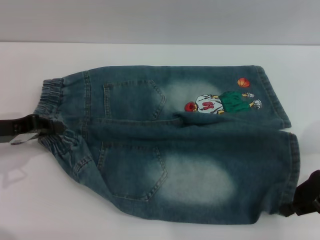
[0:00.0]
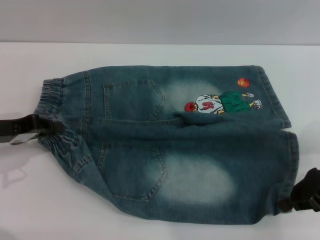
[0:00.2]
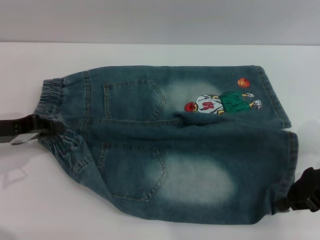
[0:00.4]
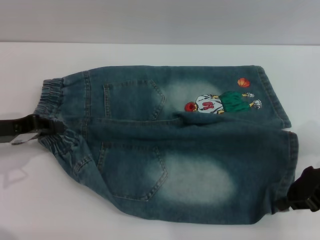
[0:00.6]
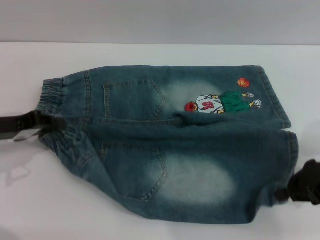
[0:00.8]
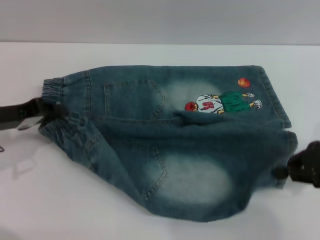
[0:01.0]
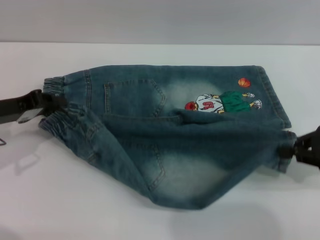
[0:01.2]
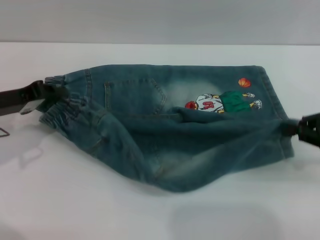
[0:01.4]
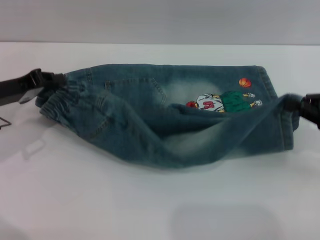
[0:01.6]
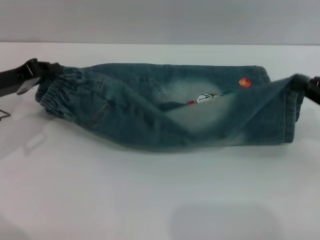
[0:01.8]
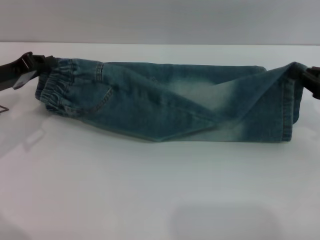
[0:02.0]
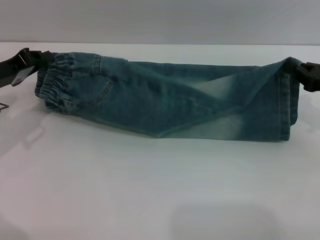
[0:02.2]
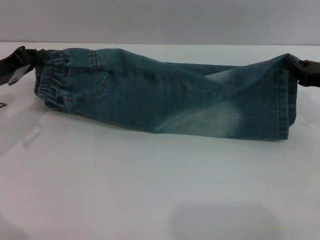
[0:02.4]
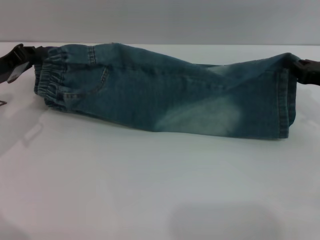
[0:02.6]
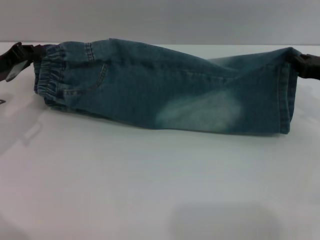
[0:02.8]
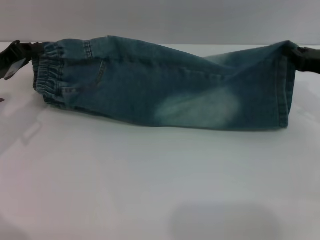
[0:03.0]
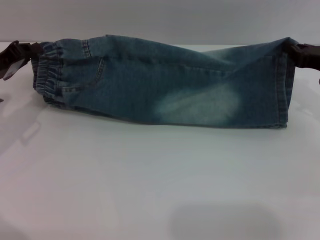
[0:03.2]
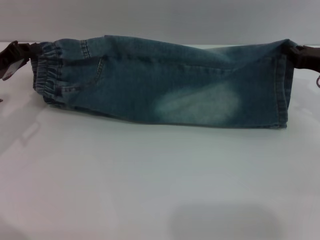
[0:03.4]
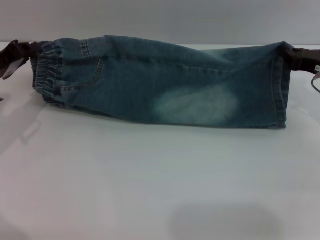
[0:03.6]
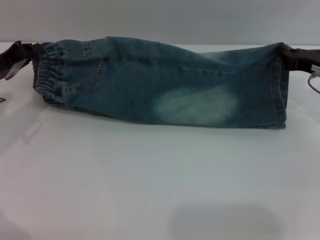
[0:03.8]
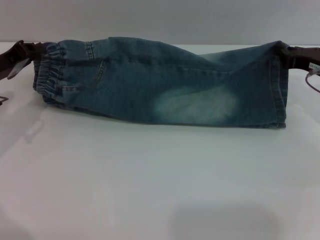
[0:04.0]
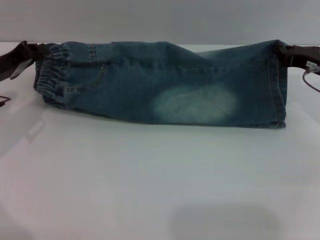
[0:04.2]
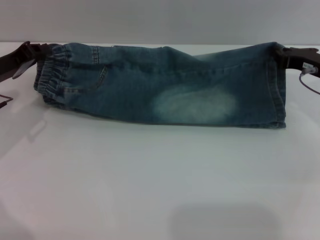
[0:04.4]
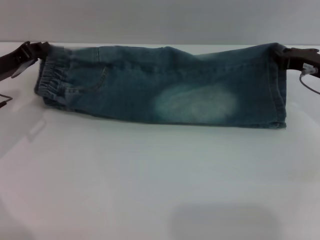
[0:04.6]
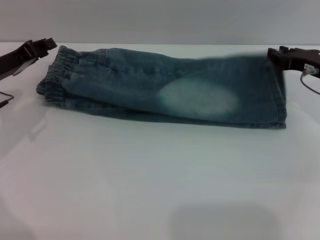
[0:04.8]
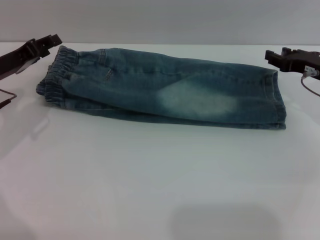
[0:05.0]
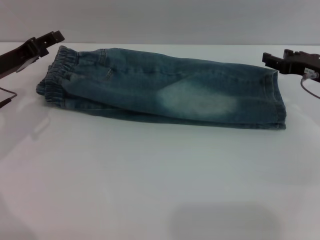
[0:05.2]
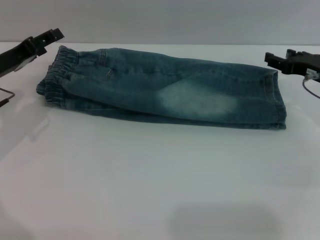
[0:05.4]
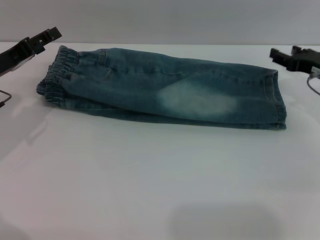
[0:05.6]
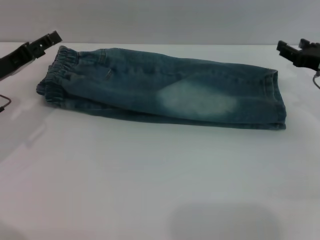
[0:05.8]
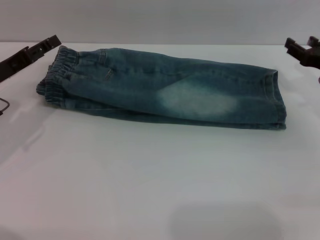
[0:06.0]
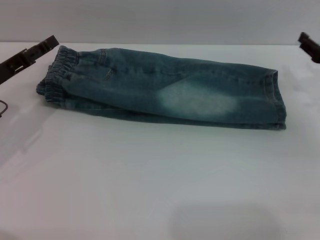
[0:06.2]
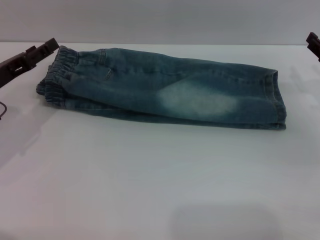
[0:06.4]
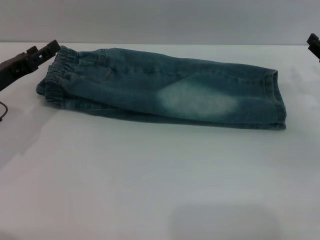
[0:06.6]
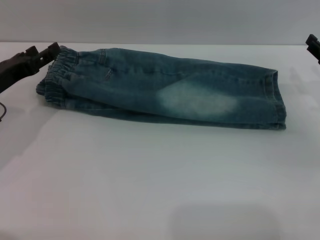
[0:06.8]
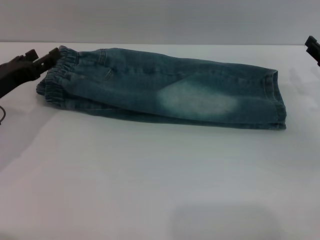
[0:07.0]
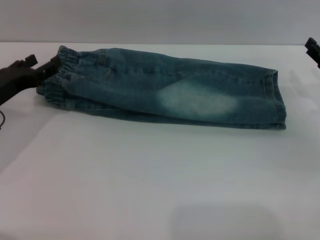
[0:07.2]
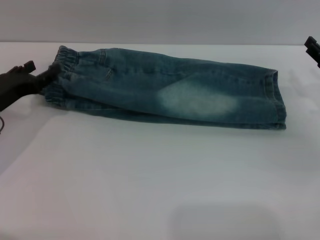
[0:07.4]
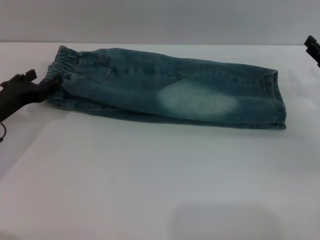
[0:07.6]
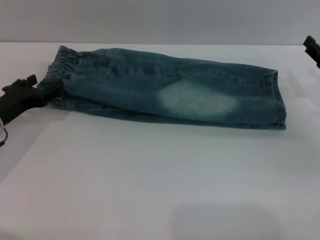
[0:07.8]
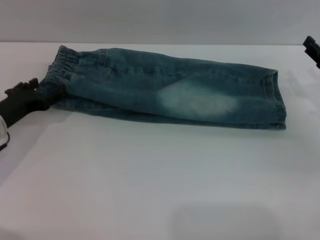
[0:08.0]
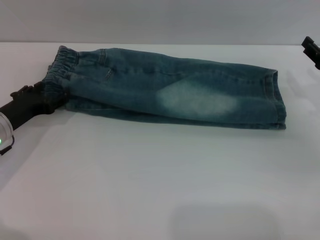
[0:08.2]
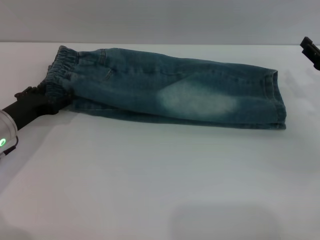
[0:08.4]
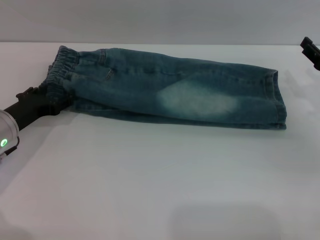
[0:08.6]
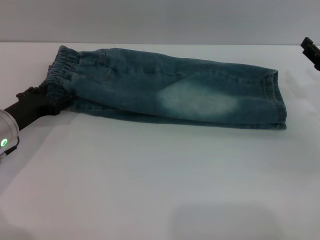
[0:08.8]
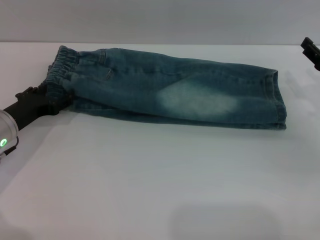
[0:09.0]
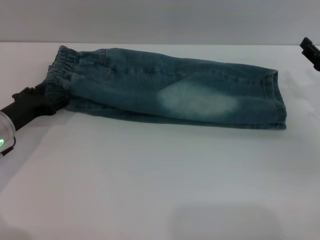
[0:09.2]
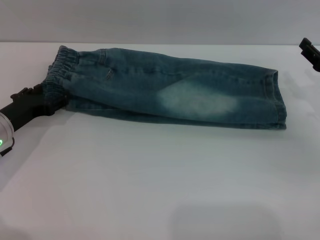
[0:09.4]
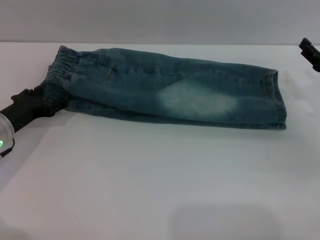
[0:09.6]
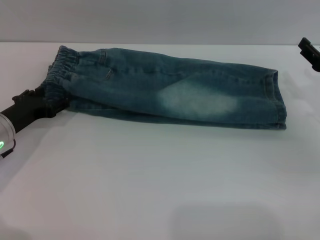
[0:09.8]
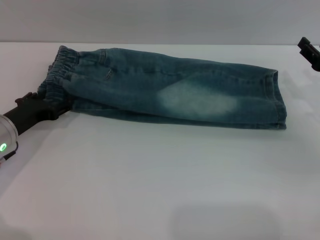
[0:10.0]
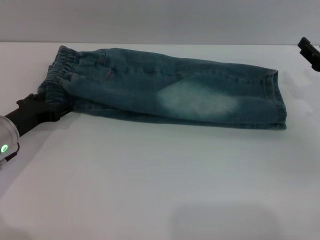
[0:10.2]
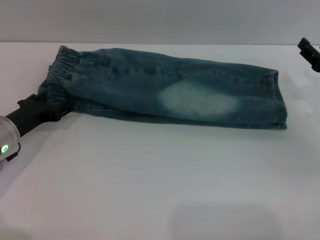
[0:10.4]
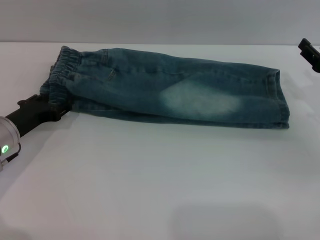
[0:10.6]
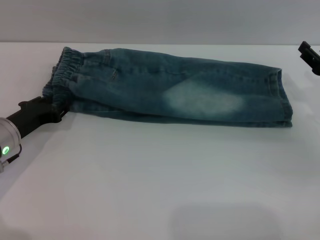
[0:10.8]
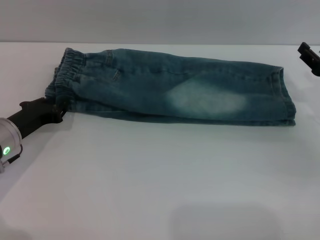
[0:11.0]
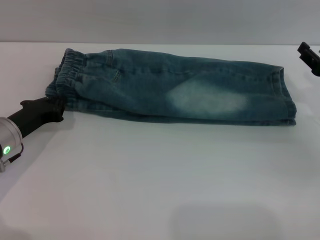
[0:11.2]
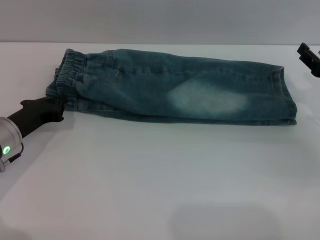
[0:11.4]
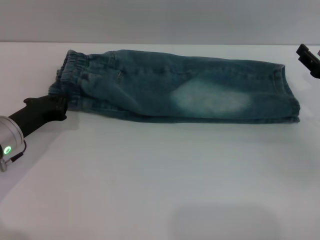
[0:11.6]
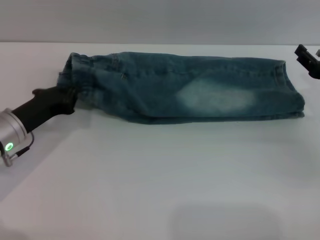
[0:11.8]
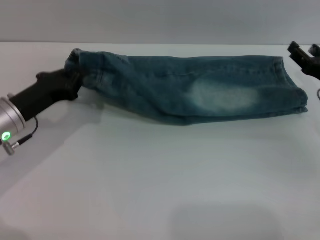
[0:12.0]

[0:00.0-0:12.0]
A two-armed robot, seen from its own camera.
Step, 0:00.0 to 0:04.8: Fold the bottom of the pants upward with both grippers.
0:00.0 to 0:01.6: The right gripper closes its fingers.
0:01.6 to 0:03.0: The right gripper travels forward by some 5 cm.
0:03.0 to 0:04.4: The grippers move only a little.
0:04.4 to 0:06.0: The right gripper opens. The left gripper opens its fingers.
0:07.6 to 0:09.0: The grippers make only small movements.
0:09.0 to 0:10.4: Both grippers stay about where they are.
0:10.4 to 0:12.0: The left gripper closes.

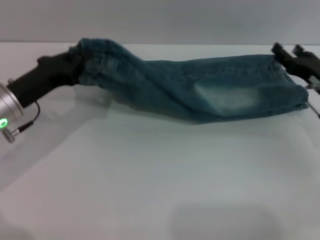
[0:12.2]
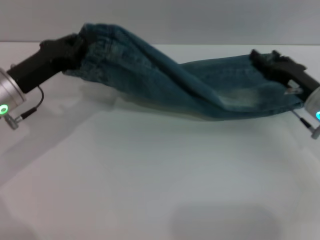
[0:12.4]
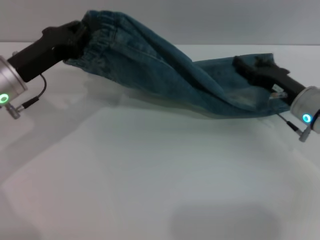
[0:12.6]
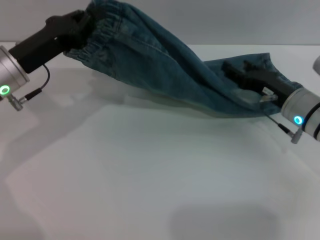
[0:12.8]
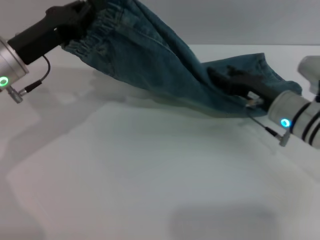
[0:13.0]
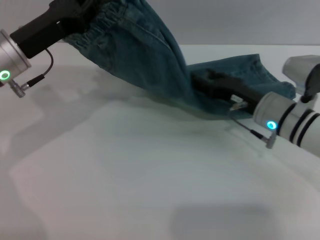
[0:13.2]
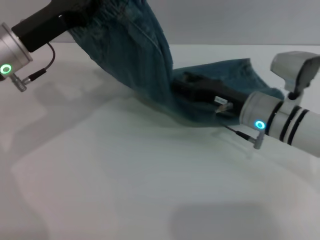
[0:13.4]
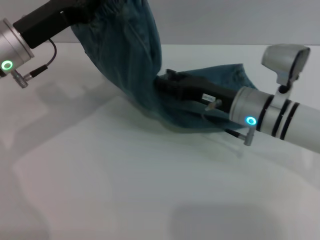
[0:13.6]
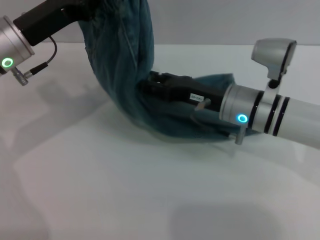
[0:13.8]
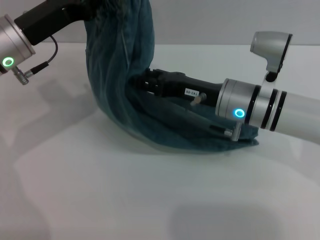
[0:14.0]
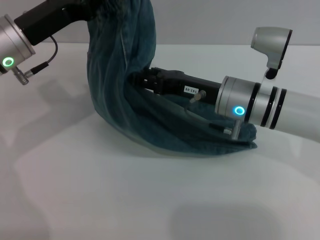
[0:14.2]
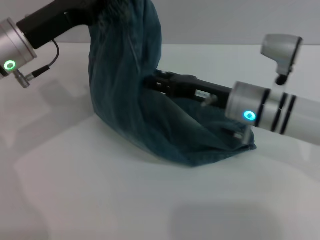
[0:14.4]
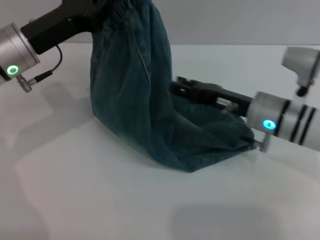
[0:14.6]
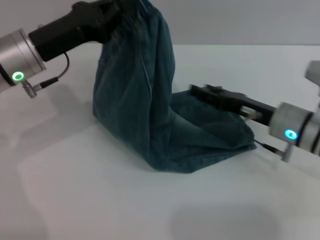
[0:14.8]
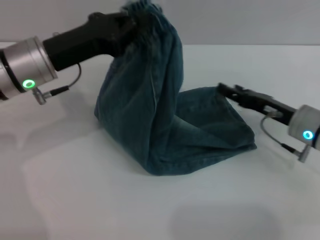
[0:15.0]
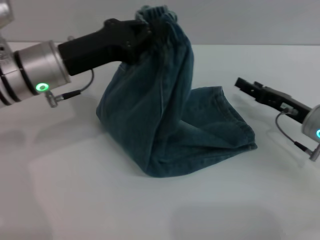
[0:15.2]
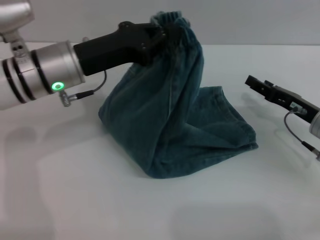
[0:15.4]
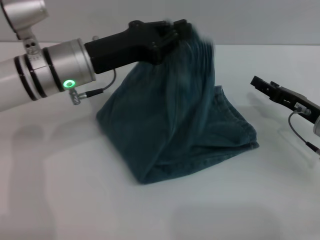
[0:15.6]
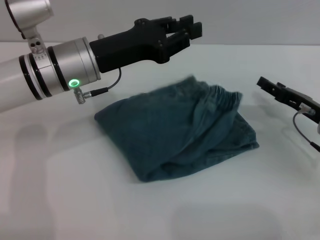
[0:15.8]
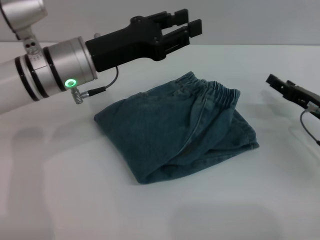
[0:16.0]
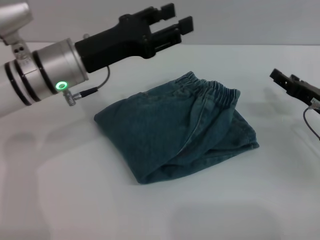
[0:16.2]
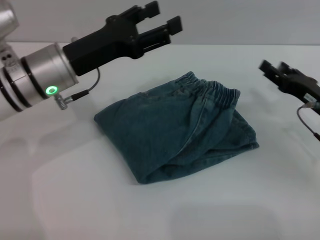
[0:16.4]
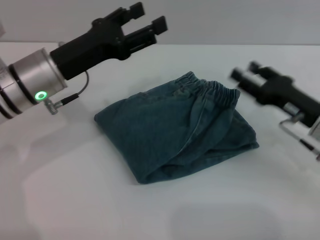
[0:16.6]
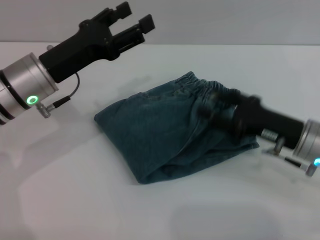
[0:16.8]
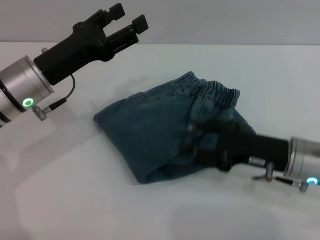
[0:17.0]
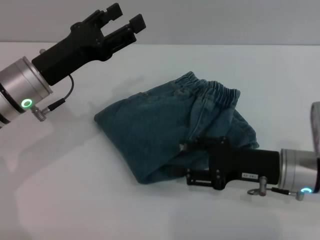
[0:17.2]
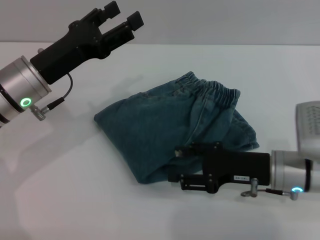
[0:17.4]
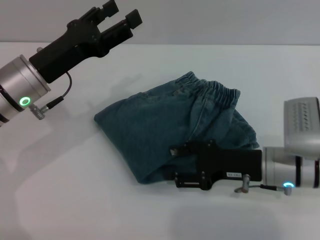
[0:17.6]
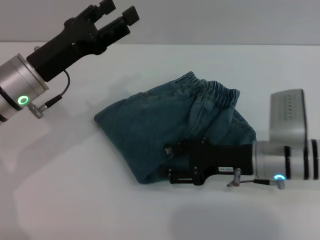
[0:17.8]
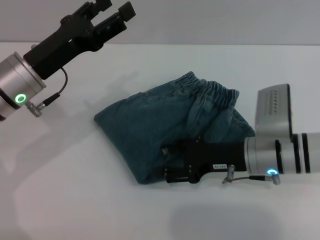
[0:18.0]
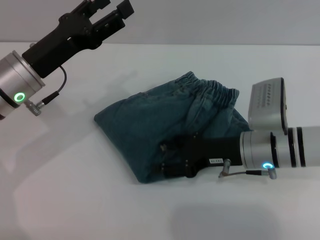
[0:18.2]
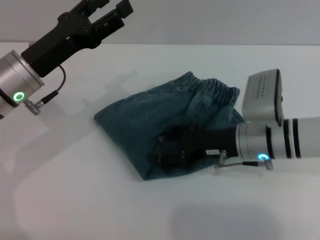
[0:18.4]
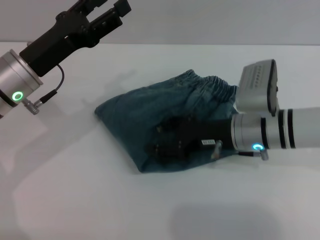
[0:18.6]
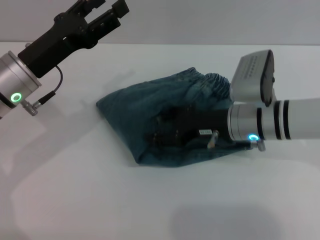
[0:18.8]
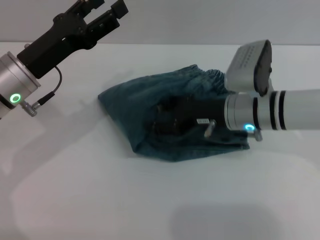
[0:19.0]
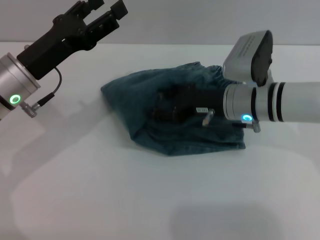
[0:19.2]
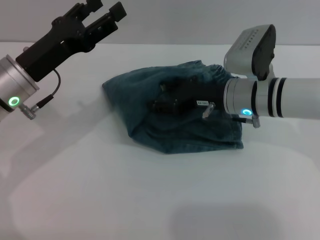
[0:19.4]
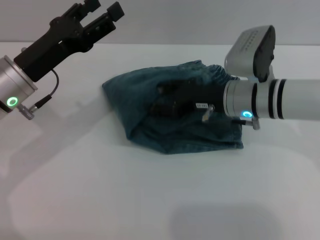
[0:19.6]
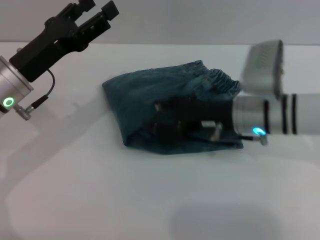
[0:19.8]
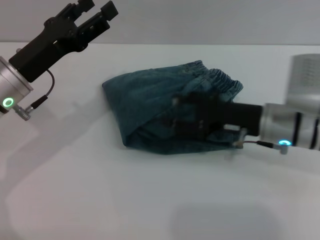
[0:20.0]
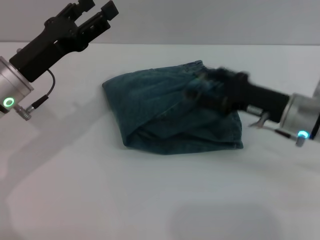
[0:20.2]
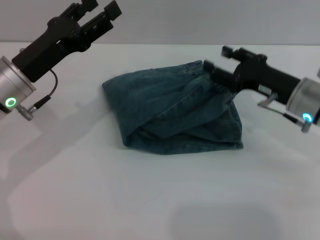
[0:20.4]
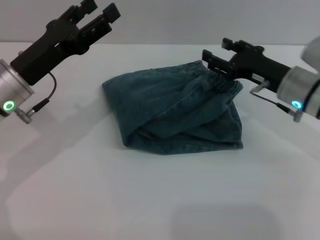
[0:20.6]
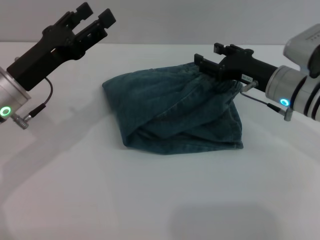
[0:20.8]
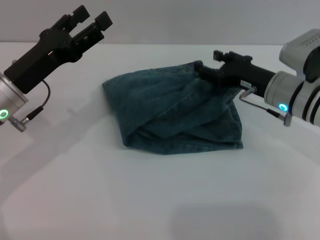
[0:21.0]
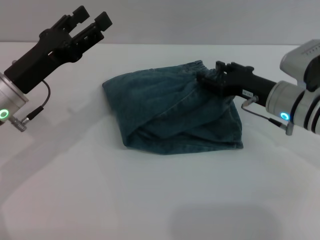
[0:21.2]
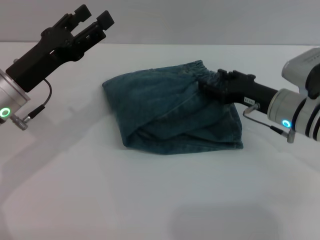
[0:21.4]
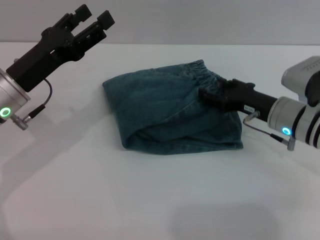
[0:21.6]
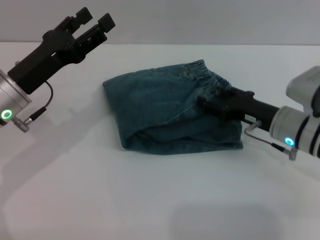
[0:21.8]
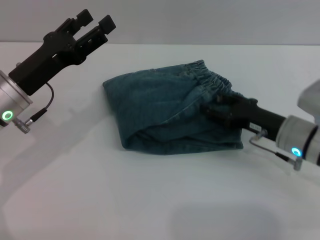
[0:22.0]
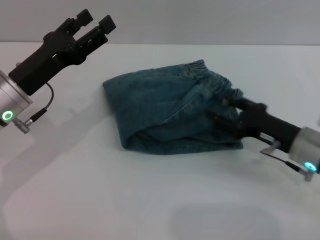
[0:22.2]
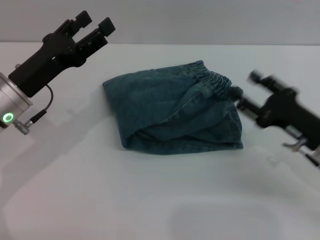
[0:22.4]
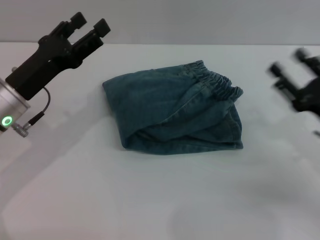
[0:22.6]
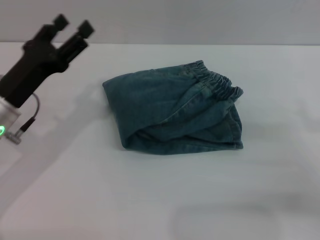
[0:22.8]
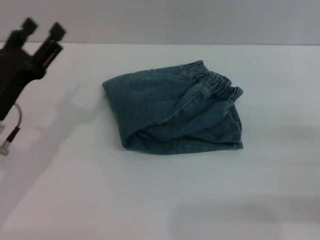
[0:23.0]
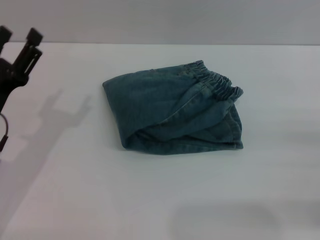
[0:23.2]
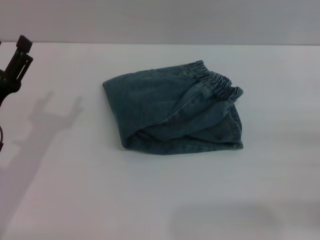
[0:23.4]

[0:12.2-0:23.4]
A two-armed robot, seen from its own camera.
Step, 0:12.2 to 0:16.6: Fold the pants from left to right with the left gripper.
0:12.2 to 0:13.8: The right gripper goes approximately 15 cm to the left. The left gripper goes approximately 10 cm upward.
0:13.8 to 0:15.4: The right gripper goes roughly 15 cm to the right, while the left gripper heads to the right, covering about 5 cm.
0:15.4 to 0:17.0: The right gripper goes about 10 cm to the left and backward; the left gripper opens its fingers.
0:17.0 to 0:18.6: The right gripper is displaced to the left and forward by about 10 cm.
0:18.6 to 0:20.2: The right gripper moves to the right, some 5 cm.
0:21.8 to 0:23.4: The right gripper goes approximately 20 cm to the right and backward. Meanwhile the left gripper shifts roughly 10 cm backward and downward.
